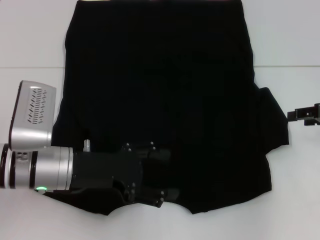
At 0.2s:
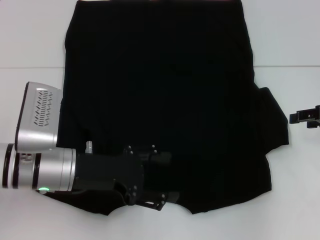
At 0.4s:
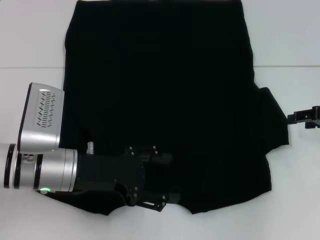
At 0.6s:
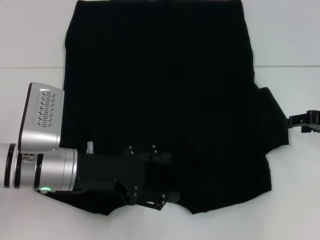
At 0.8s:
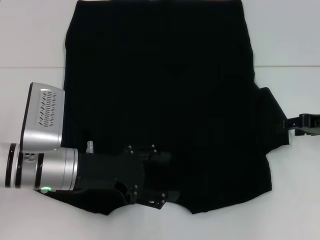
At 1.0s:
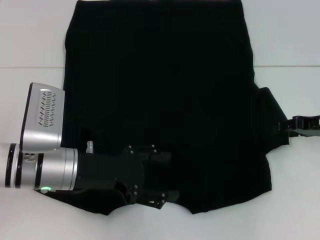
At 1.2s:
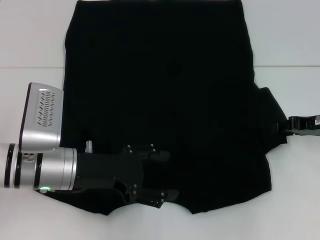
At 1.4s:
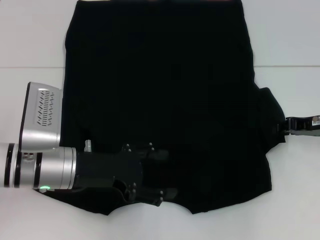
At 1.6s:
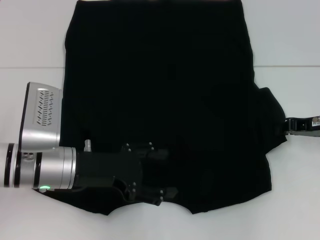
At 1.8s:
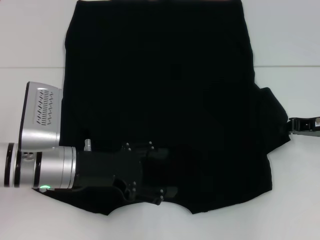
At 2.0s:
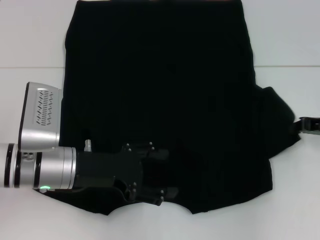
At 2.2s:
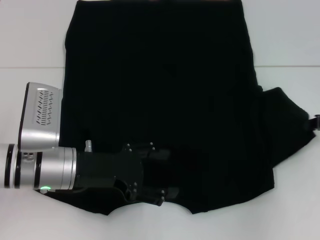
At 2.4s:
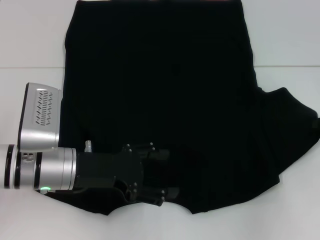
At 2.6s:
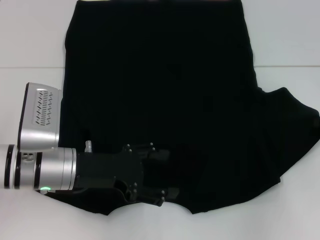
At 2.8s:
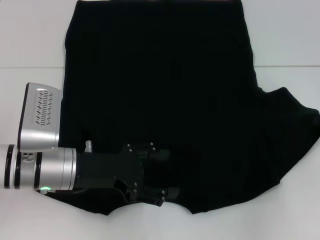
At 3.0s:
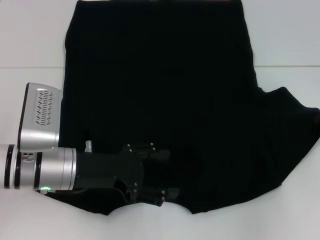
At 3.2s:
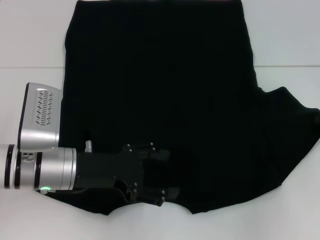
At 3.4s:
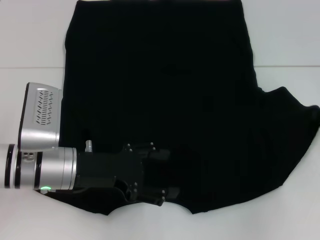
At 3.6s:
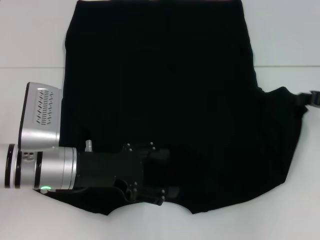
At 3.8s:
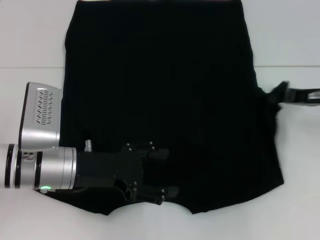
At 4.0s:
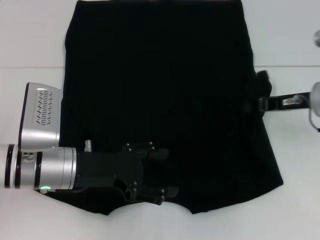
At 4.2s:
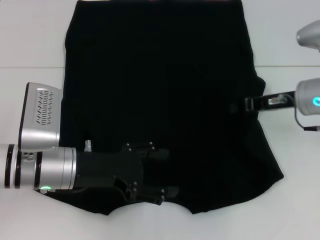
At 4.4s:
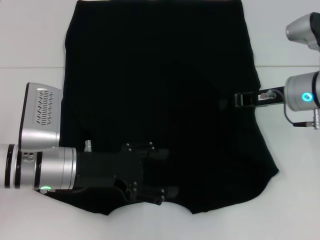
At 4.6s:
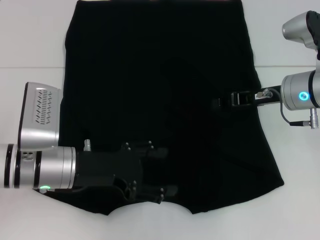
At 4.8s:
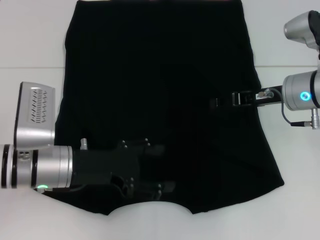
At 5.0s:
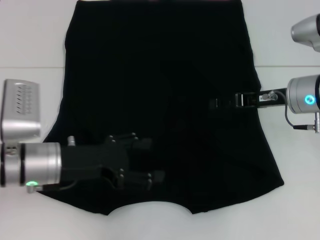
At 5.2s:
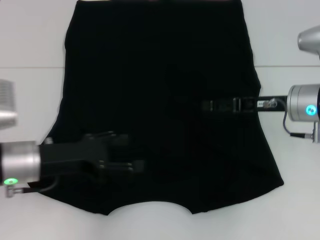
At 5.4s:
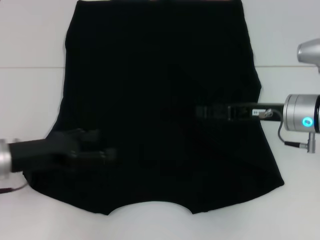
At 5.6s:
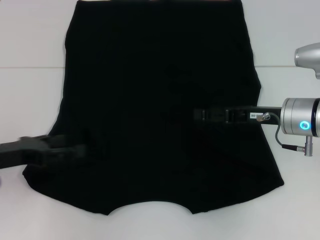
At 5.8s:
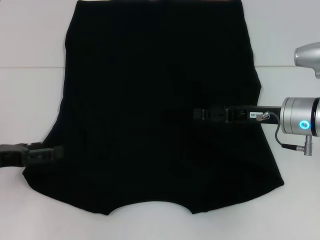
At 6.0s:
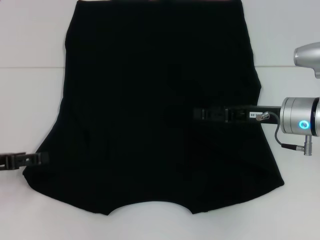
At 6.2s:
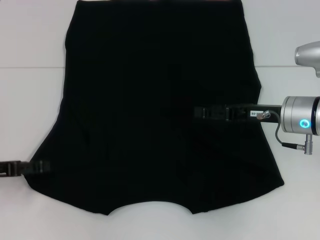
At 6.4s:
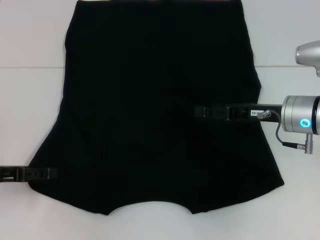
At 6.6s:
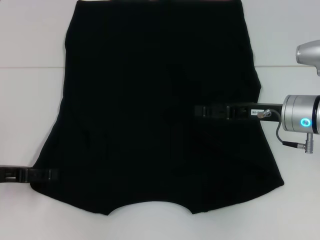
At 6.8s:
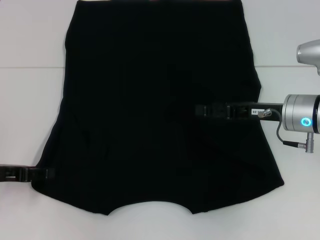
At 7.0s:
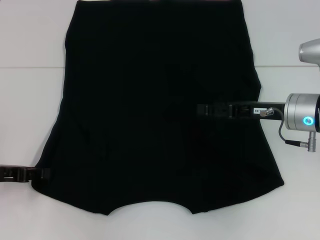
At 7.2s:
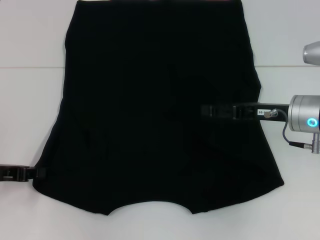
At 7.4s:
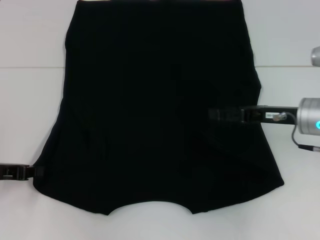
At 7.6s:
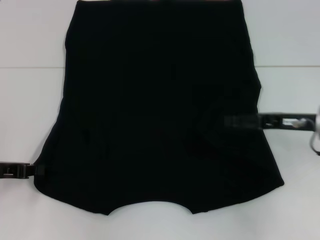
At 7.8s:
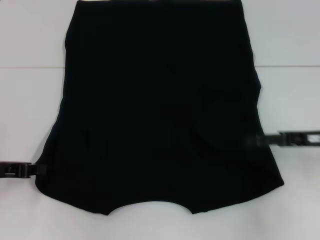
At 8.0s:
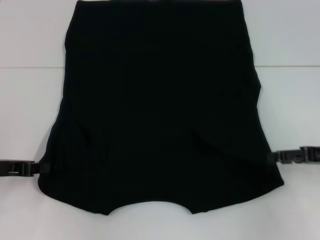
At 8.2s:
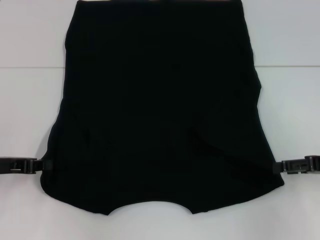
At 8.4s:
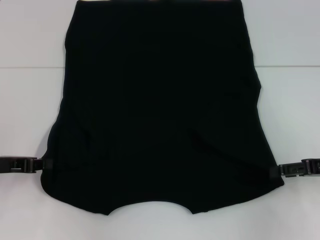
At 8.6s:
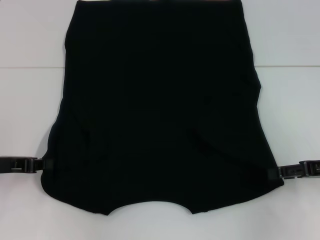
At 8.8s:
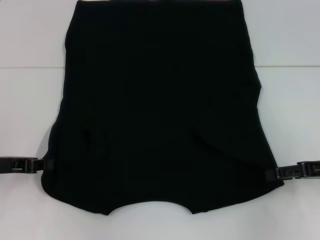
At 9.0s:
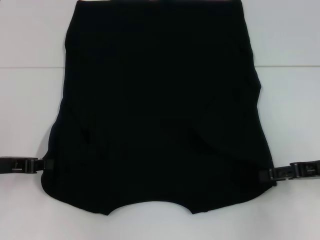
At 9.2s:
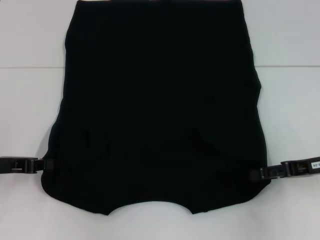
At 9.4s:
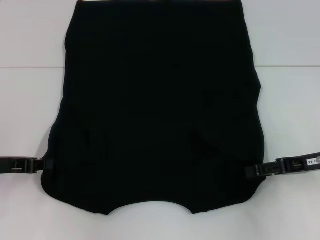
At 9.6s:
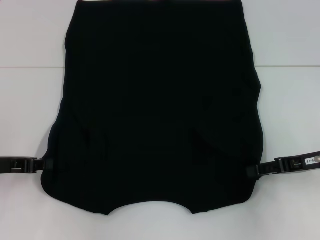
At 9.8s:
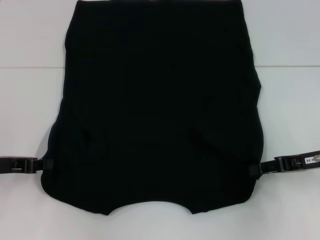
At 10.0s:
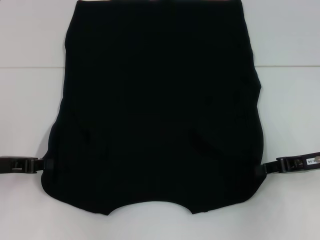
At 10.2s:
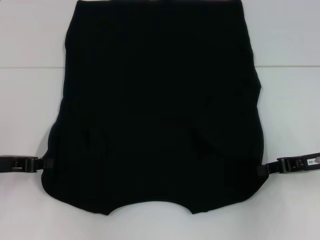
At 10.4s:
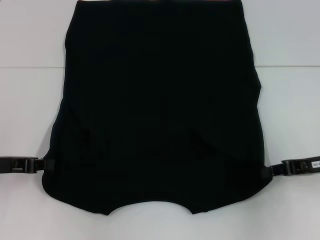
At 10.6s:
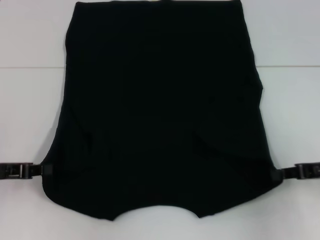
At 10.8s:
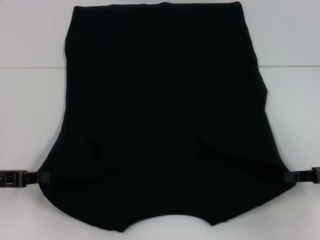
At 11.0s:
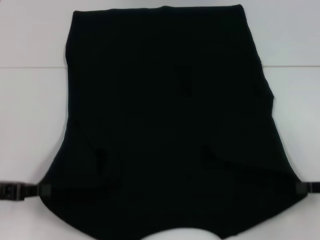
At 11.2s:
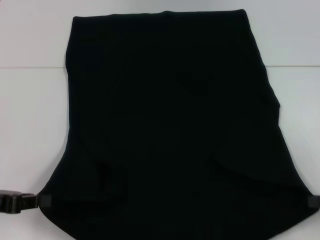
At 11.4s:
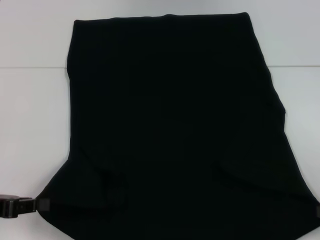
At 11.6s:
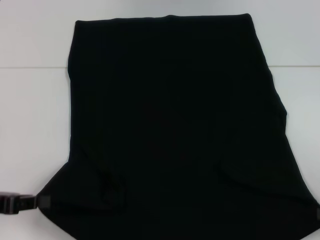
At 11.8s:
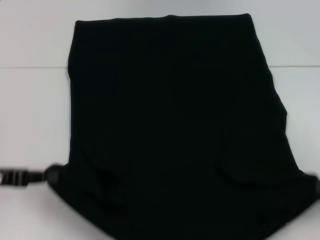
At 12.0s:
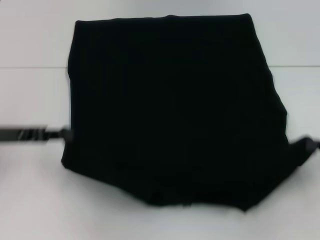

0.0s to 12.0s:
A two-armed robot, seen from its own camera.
Step, 0.0s to 5.0s: Fold the bottom right sleeve with your right hand.
Step, 5.2s to 10.6s: Grab the bottom left corner with your left hand.
Step, 5.2s to 10.6s: Grab the bottom right corner with your right hand.
0.0s to 1.6s: The right gripper changes place by some 5 cm, and closes.
1.6s to 3.0s: The right gripper goes about 5 cm to the right.
3.0s to 4.4s: The right gripper moves to the left, about 15 cm.
4.4s to 6.0s: The left gripper travels to the left by approximately 15 cm. Meanwhile the right gripper opens up.
6.0s to 7.6s: The right gripper travels to the right by approximately 5 cm. Meanwhile the left gripper closes its fingers.
7.6s to 9.0s: The right gripper changes place by about 5 cm.
9.0s to 10.4s: The right gripper closes its fingers.
10.4s to 12.0s: The left gripper travels backward and back again, about 5 cm each way, while the right gripper goes approximately 5 cm to the right.

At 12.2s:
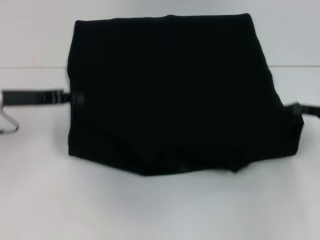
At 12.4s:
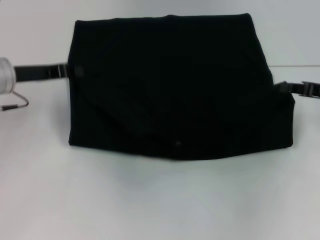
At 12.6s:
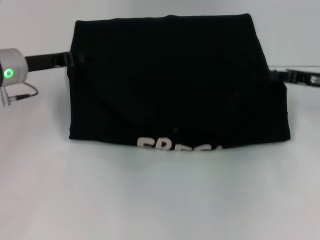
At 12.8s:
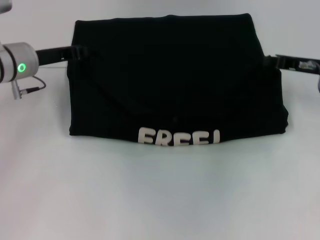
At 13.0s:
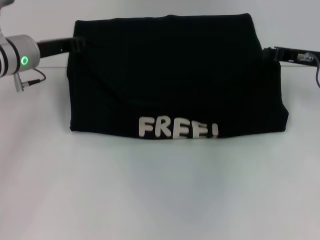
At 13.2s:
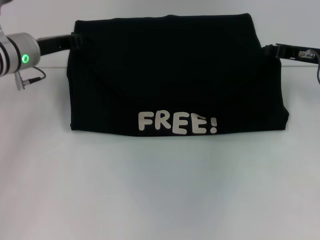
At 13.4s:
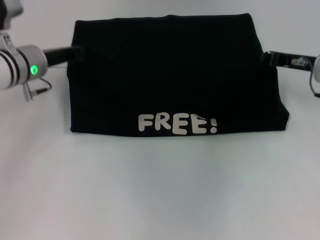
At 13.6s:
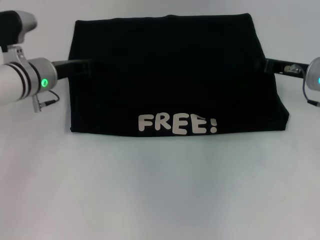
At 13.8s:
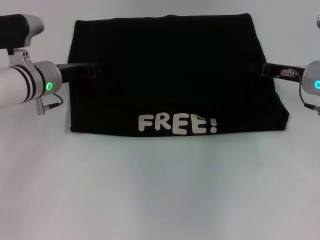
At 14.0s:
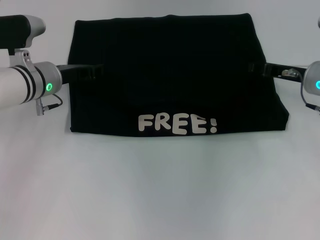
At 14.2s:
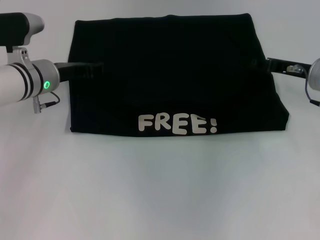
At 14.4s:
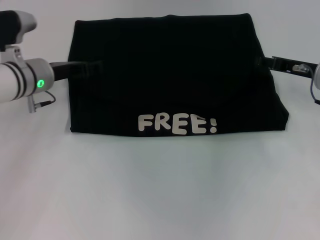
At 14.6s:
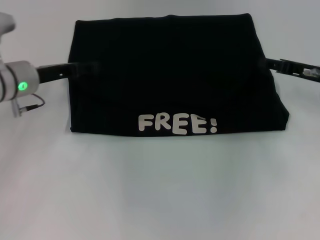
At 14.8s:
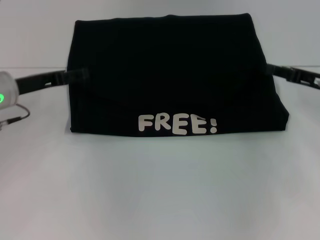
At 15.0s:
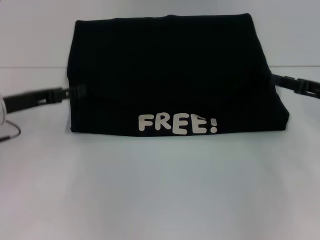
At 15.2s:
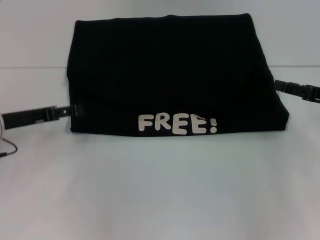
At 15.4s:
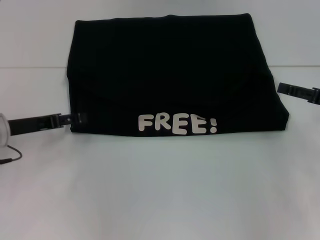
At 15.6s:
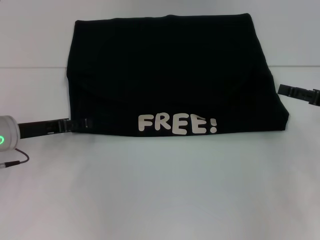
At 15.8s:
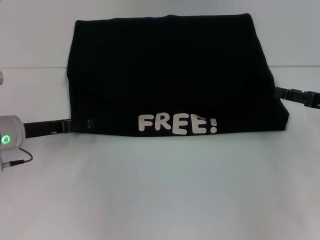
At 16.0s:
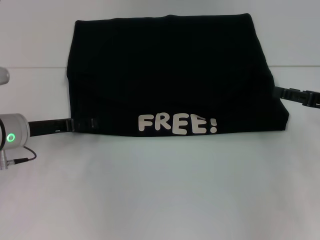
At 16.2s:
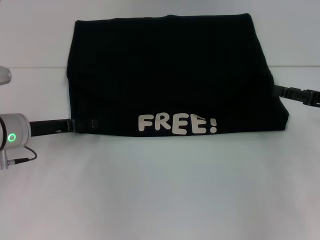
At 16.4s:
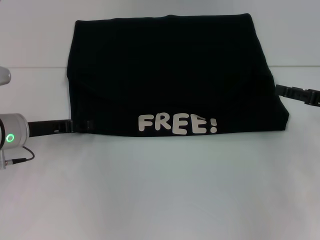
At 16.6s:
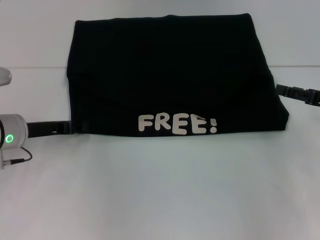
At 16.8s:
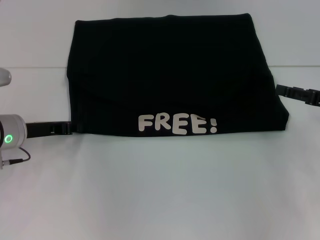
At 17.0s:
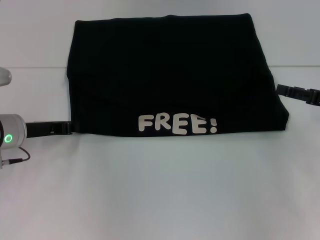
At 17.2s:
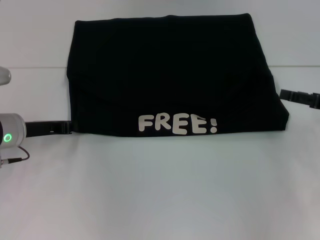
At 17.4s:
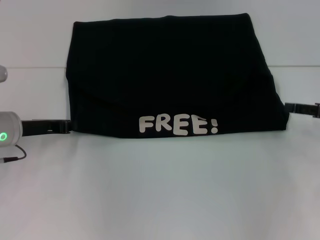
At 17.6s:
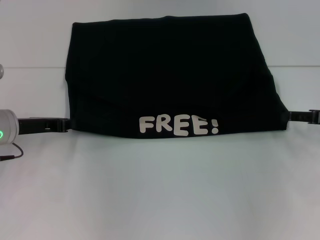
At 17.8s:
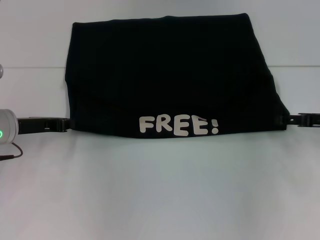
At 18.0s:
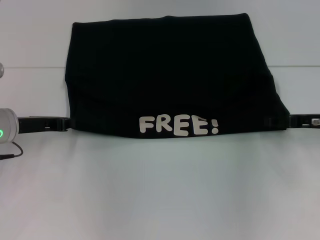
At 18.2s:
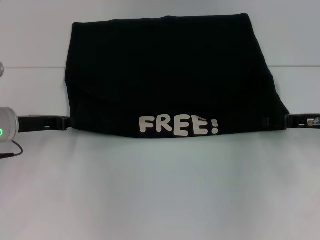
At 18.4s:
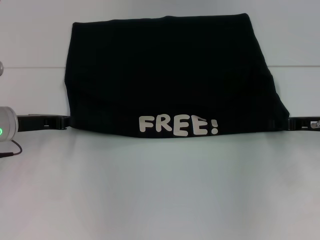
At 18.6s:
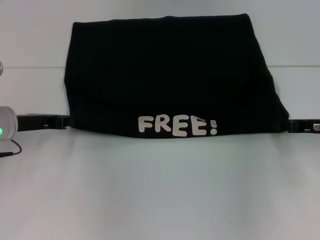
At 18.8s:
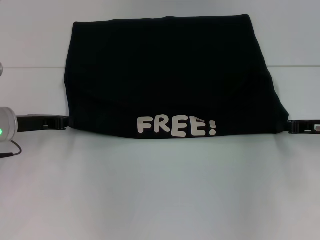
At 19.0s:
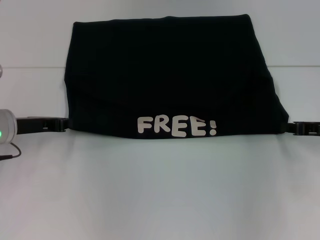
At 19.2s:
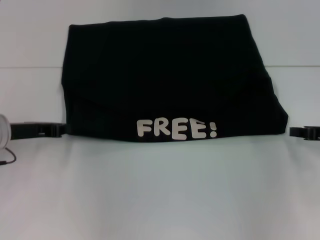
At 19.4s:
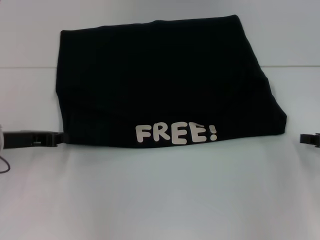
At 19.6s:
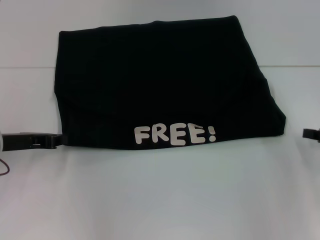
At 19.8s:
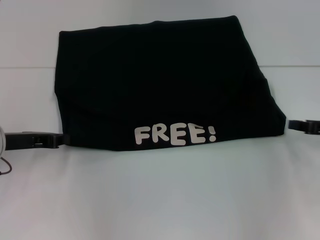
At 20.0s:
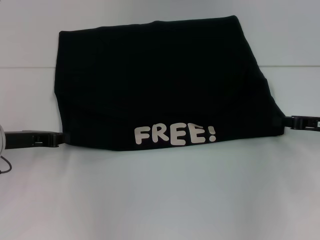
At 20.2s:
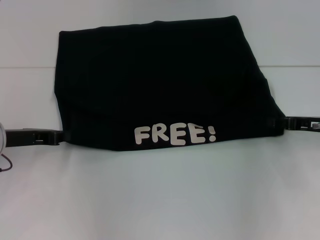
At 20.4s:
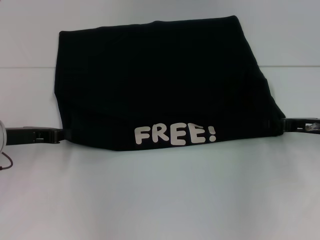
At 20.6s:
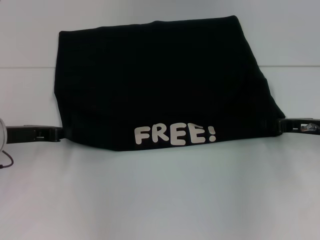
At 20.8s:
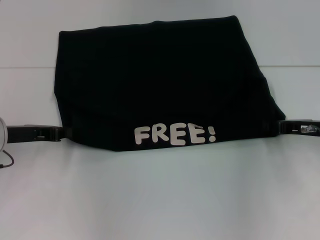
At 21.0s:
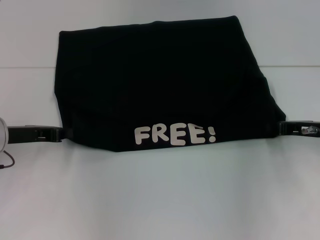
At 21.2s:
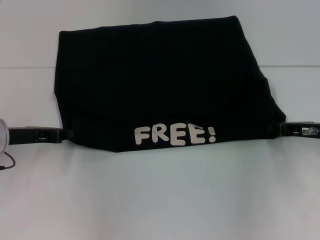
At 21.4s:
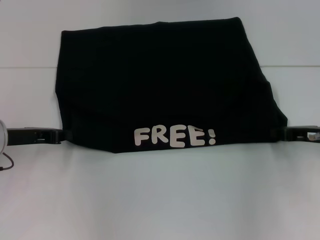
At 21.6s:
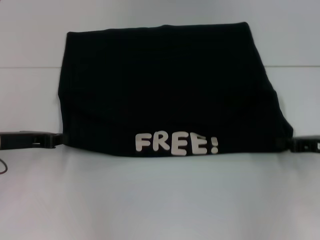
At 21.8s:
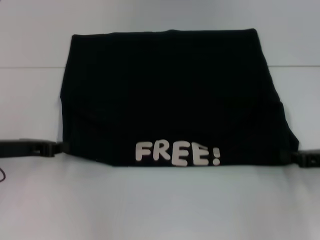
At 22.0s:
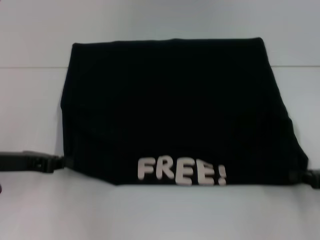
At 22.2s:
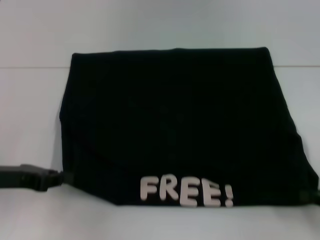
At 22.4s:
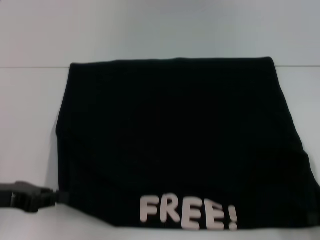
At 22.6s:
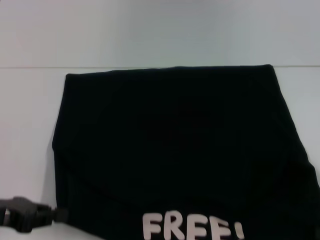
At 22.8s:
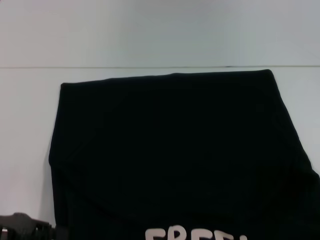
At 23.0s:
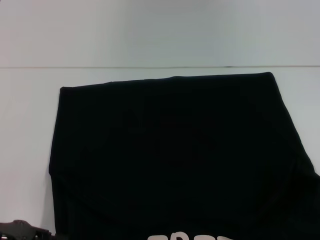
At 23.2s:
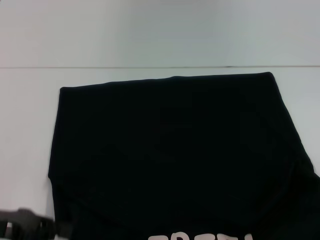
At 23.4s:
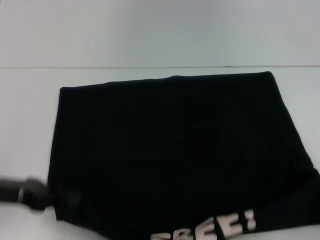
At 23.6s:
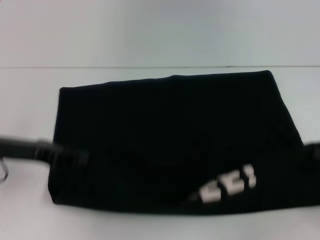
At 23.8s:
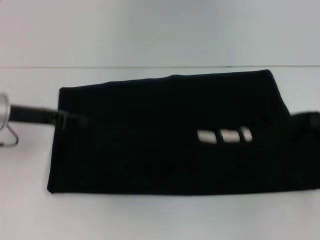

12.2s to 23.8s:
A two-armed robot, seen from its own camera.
Step, 12.2s to 14.4s: Fold the clothes with your left hand.
Step, 12.2s to 14.4s: Fold the clothes with your right hand.
Step, 14.6s to 22.6s: Pull the clothes with your left hand.
Step, 14.6s to 22.6s: Pull the clothes with your right hand.
12.2s to 13.6s: The left gripper shifts about 10 cm forward and to the right. Meanwhile the right gripper shifts roughly 15 cm forward and to the left.
13.6s to 15.0s: The right gripper is displaced backward and to the right by some 10 cm, and opens. The left gripper travels backward and to the left by some 10 cm, and opens its fingers.
15.0s to 16.6s: The grippers stay close to where they were, moving slightly.
16.6s to 18.0s: The left gripper closes up.
18.0s to 19.4s: The right gripper changes place by about 5 cm, and closes up.
19.4s to 21.0s: The right gripper is displaced to the left by roughly 5 cm, and opens its fingers.
21.0s to 22.4s: The left gripper shifts about 10 cm backward; the right gripper shifts roughly 20 cm backward and to the right, and closes its fingers.
22.4s to 23.8s: Both grippers travel together forward, roughly 10 cm.
